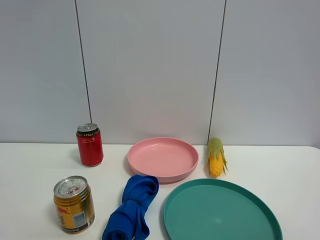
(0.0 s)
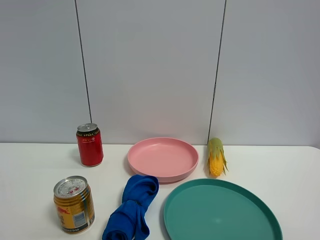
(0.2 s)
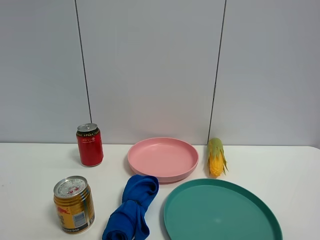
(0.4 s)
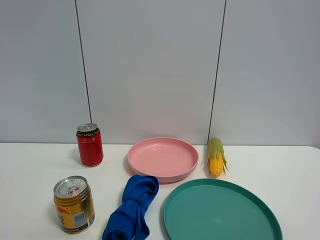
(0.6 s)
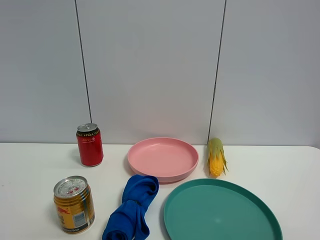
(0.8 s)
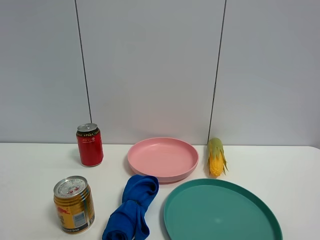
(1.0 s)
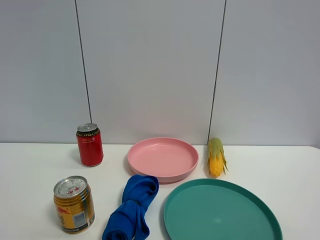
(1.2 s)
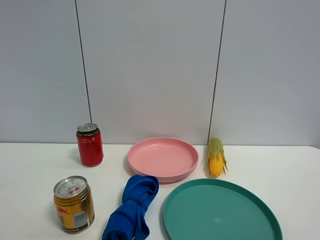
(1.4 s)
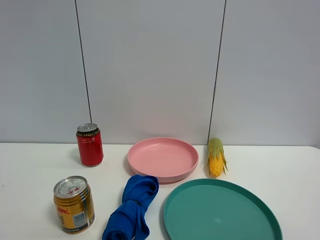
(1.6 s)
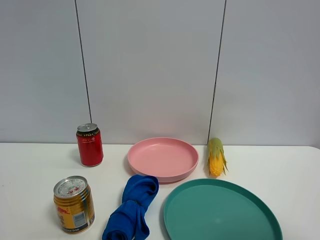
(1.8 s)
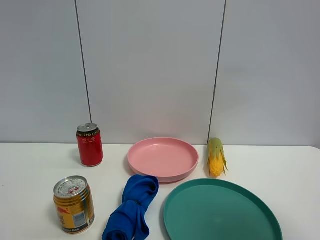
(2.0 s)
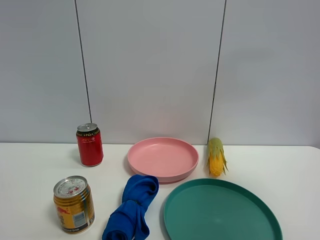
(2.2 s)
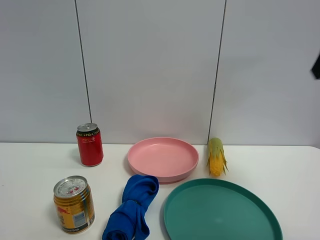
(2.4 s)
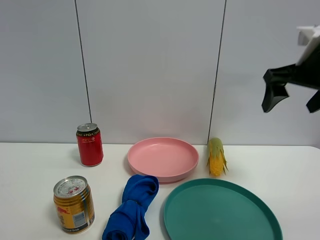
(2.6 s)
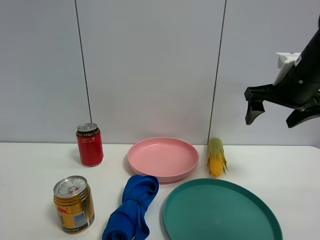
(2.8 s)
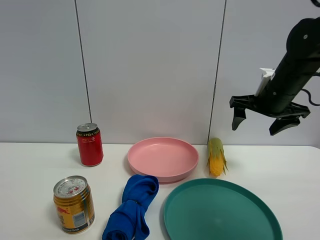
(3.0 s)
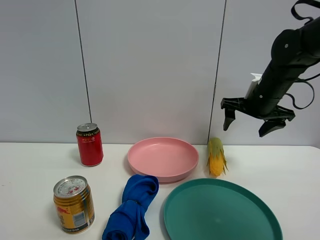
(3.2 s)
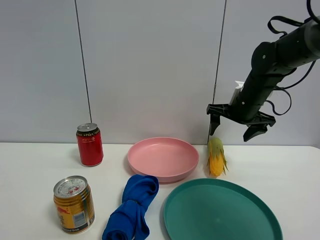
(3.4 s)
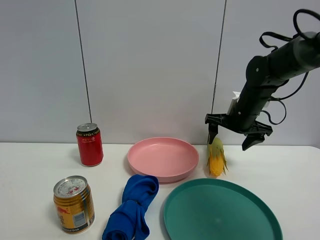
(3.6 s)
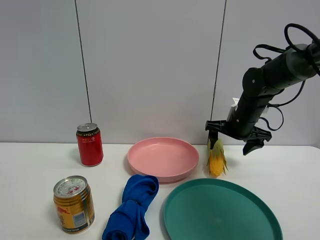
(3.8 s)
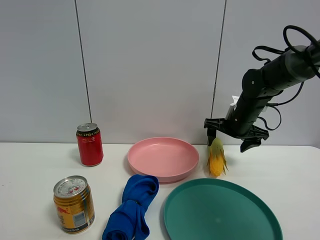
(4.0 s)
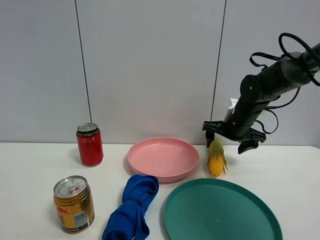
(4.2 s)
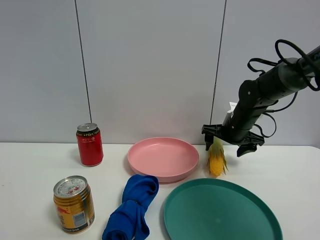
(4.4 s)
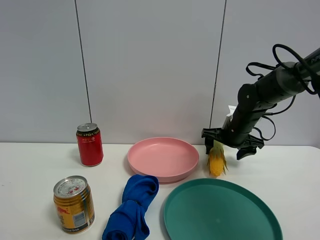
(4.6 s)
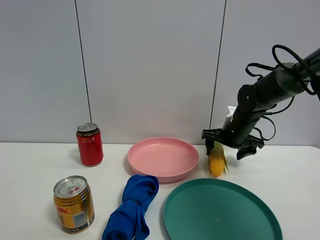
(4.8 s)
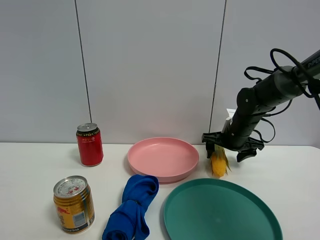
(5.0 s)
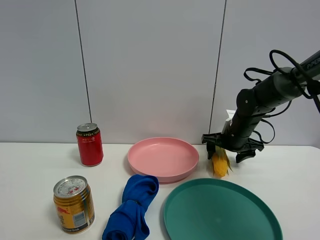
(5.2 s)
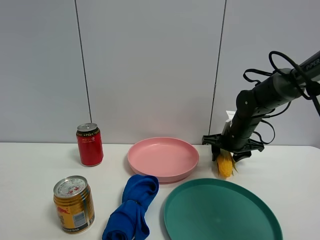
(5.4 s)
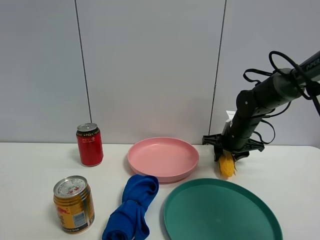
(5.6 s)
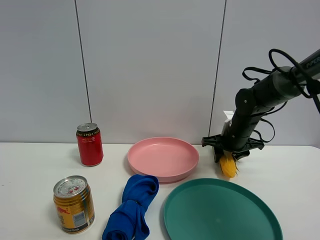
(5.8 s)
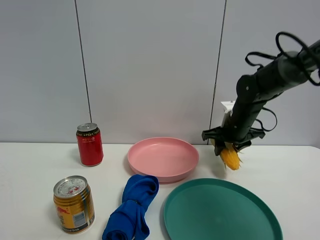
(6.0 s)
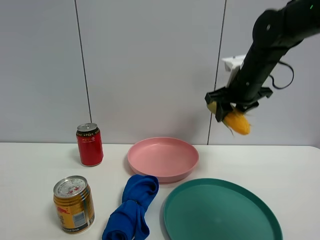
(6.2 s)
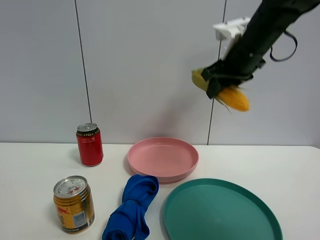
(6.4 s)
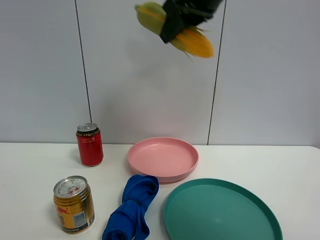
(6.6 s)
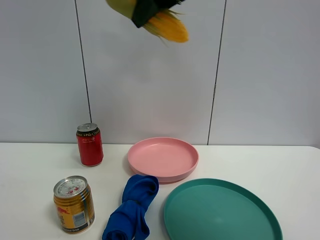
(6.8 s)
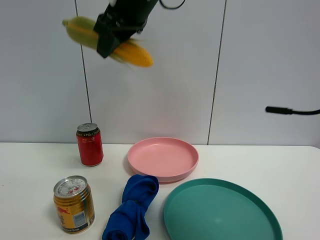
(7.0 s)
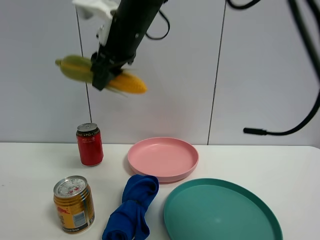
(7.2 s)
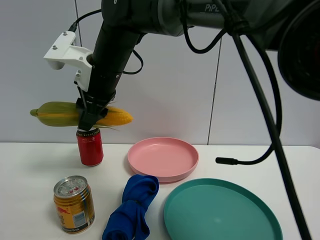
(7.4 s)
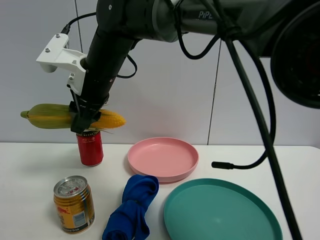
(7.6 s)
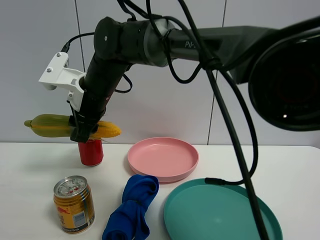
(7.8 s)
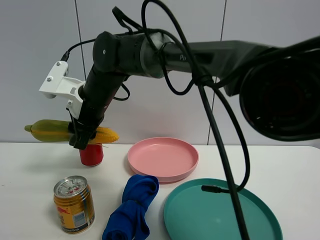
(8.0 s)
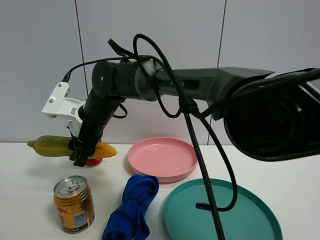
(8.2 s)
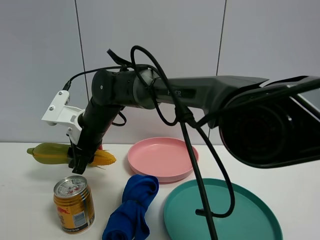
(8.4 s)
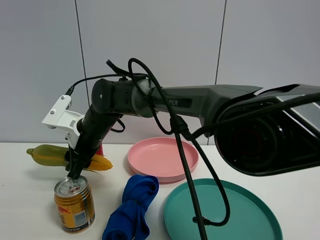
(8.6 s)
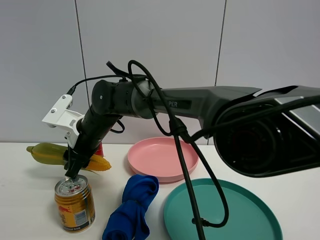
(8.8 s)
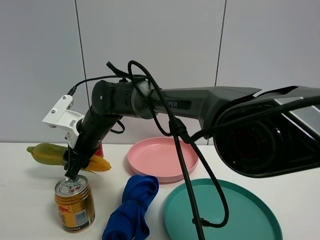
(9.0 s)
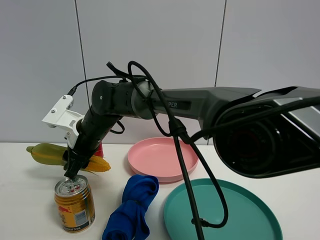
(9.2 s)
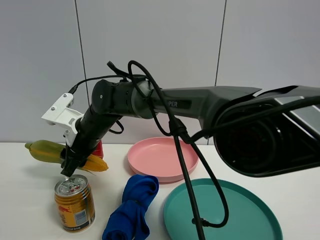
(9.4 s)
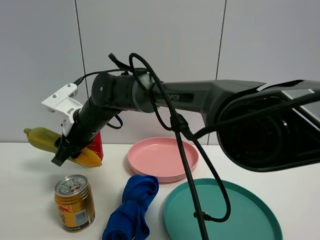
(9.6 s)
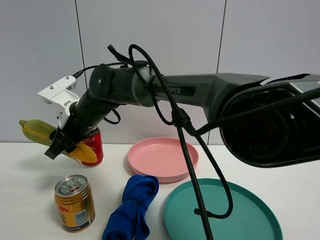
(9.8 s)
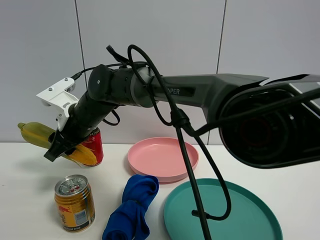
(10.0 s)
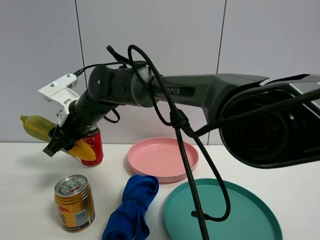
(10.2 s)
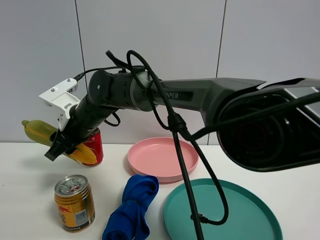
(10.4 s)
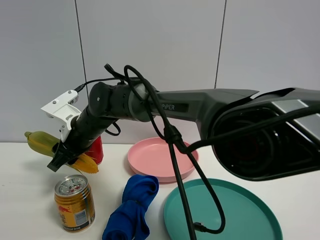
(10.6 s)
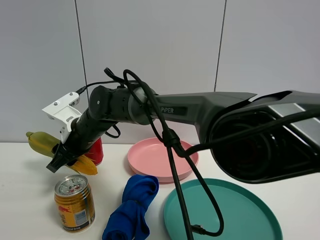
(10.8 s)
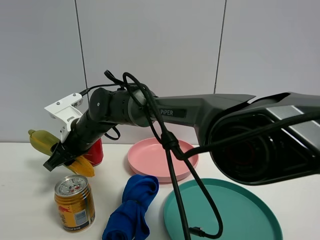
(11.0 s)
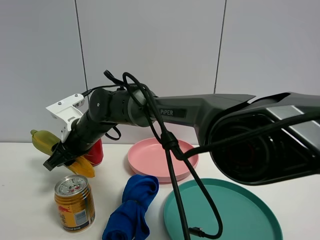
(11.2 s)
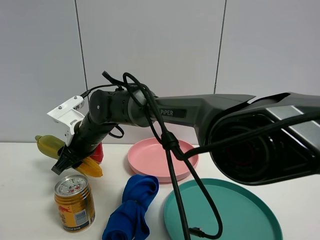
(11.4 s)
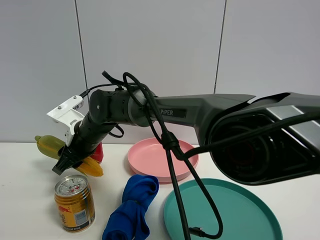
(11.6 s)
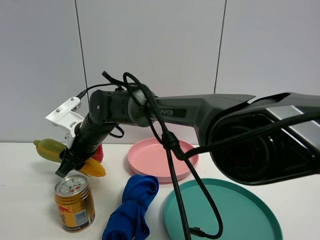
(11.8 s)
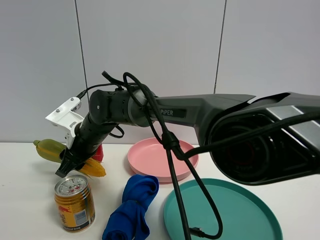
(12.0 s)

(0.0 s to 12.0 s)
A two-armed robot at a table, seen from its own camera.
Task of the whole recording: the gripper move the object.
Step, 0.0 s - 5.6 s: Grasp the corn with the right gripper.
1.6 s - 3.0 s: The right gripper travels forward by approximately 40 cm.
3.0 s - 4.4 s: The right gripper heads downward and forward, covering roughly 10 cm.
4.4 s - 6.0 s: The right gripper closes.
6.0 s - 7.6 s: The right gripper goes approximately 30 cm to the left.
7.6 s - 9.0 s: The right gripper heads downward, covering roughly 15 cm.
9.0 s - 10.4 s: The grippers move only a little.

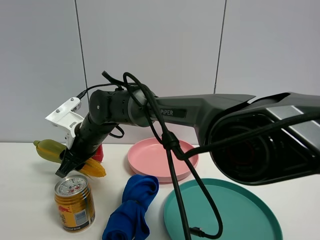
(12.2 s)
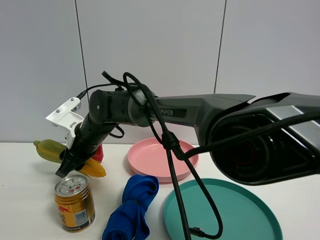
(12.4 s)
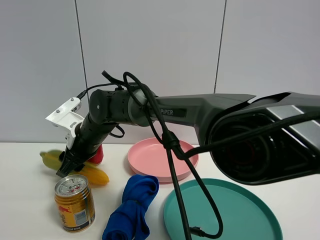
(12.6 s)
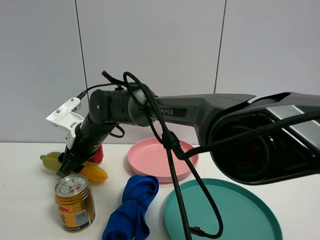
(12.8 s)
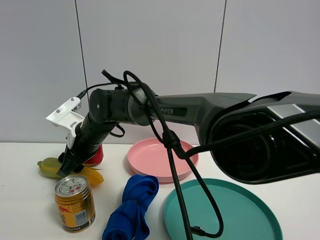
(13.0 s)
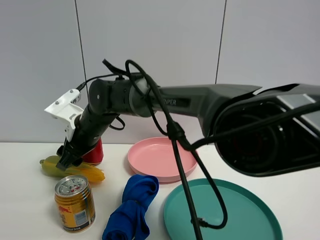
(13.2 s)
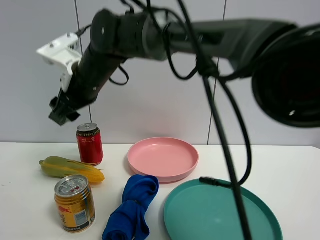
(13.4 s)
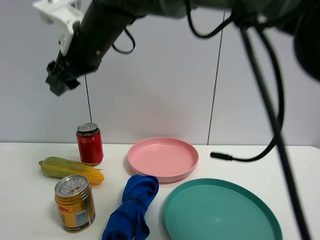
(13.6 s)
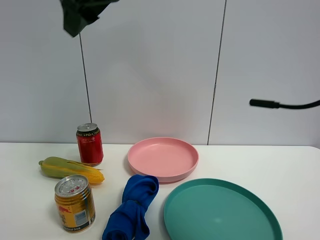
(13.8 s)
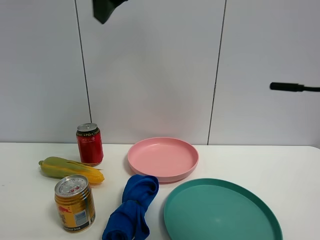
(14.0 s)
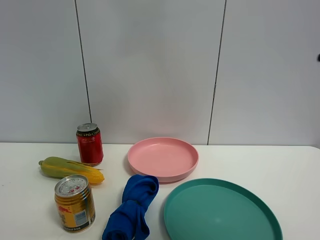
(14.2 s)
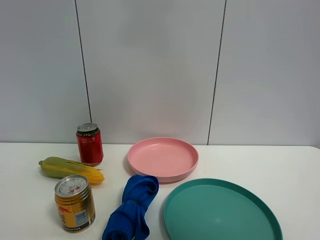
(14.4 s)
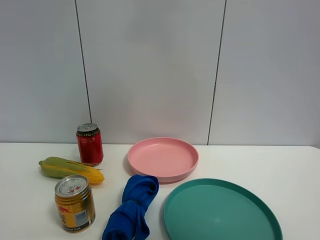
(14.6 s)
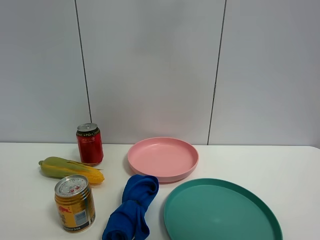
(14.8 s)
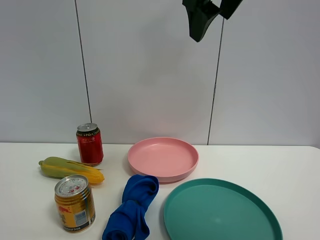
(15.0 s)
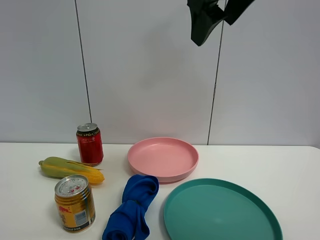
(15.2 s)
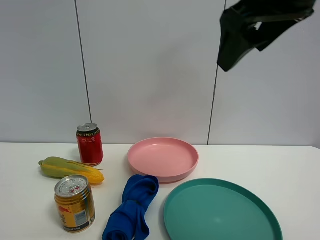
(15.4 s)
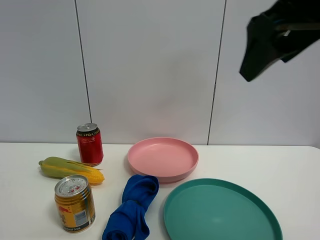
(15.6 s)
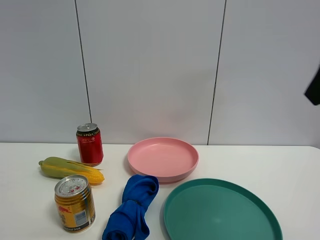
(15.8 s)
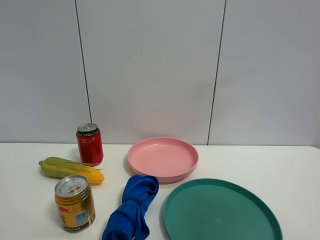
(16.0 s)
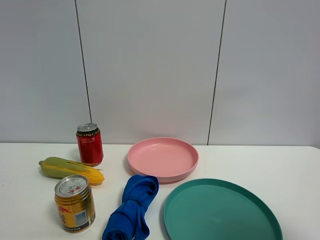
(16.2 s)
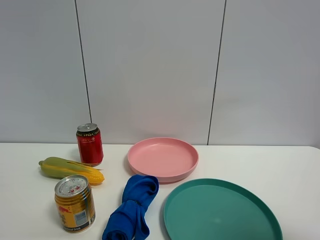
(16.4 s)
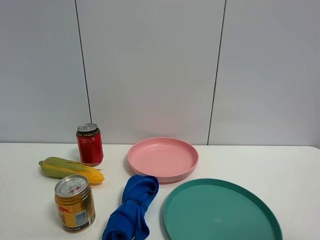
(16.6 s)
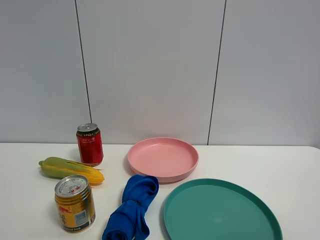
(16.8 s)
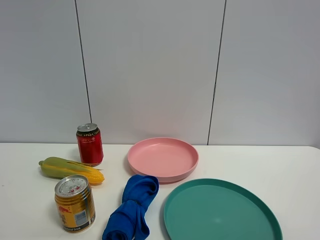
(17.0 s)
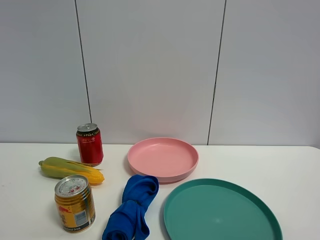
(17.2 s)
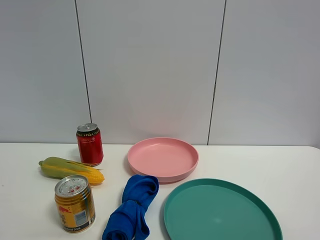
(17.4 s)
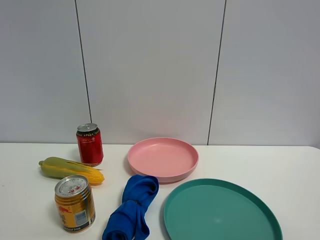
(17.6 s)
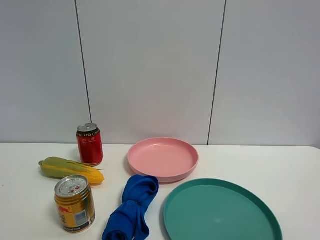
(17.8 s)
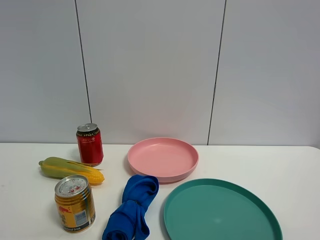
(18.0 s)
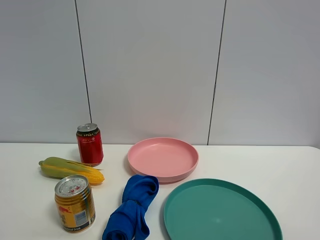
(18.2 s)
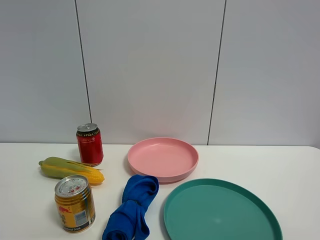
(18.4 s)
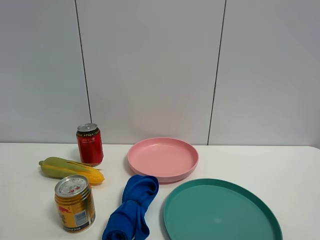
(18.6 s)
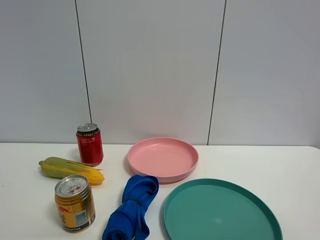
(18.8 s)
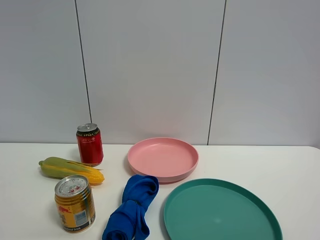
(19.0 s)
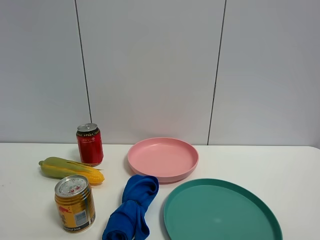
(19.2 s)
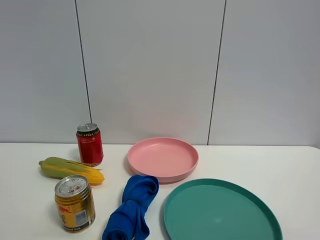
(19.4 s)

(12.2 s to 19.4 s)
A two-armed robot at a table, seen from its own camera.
Task of the whole recording: the gripper move the object.
12.2 s - 13.6 s: The right gripper travels upward by some 20 cm, and opens up.
13.6 s - 15.0 s: The right gripper heads to the right and upward, covering about 20 cm.
15.0 s - 16.6 s: The right gripper moves backward, to the right and downward, about 35 cm.
18.0 s - 19.4 s: Both grippers stay put.

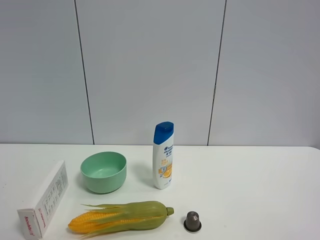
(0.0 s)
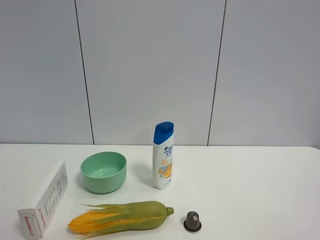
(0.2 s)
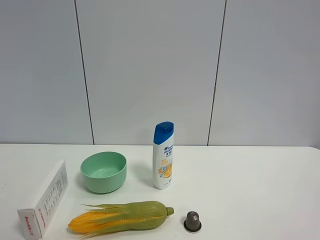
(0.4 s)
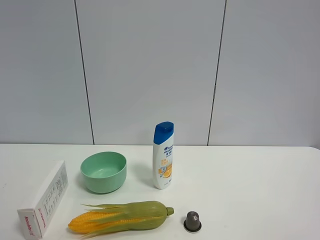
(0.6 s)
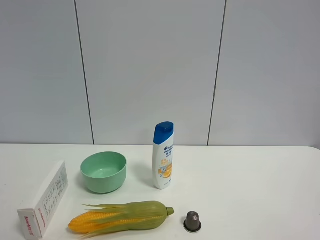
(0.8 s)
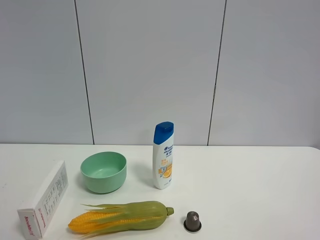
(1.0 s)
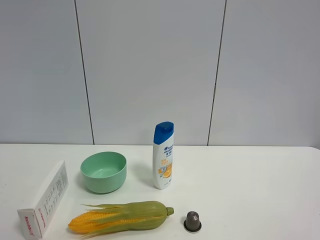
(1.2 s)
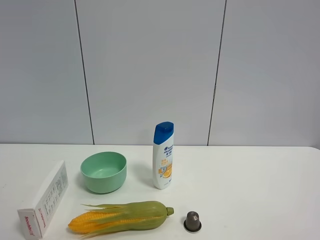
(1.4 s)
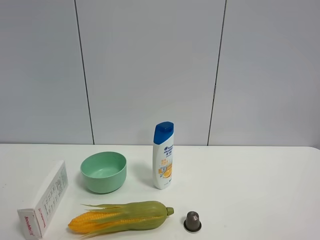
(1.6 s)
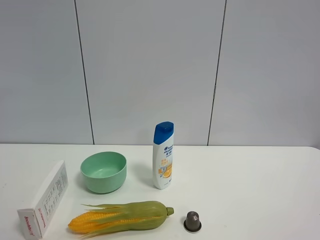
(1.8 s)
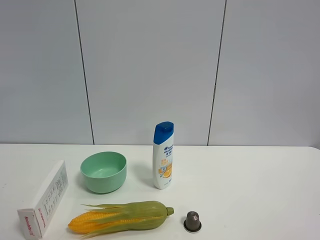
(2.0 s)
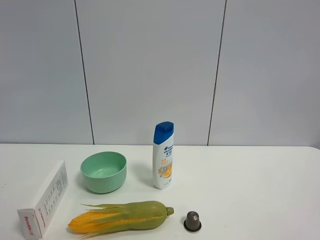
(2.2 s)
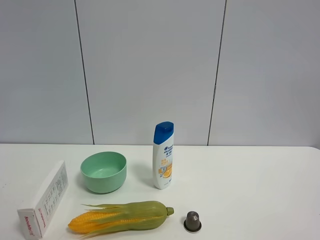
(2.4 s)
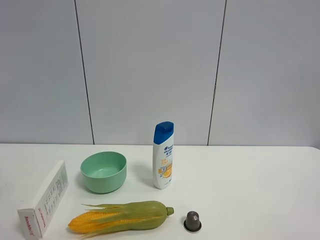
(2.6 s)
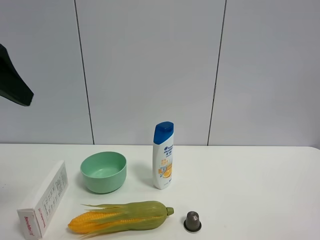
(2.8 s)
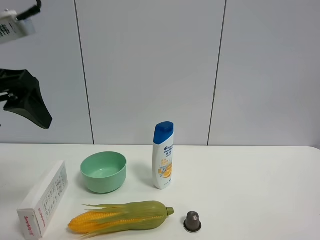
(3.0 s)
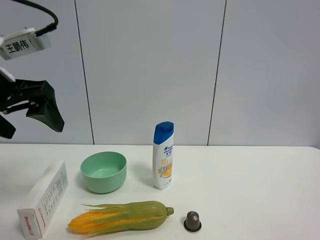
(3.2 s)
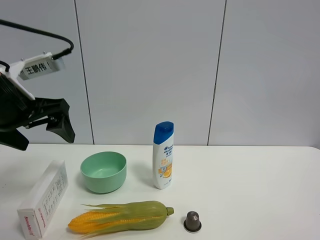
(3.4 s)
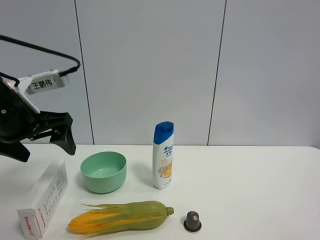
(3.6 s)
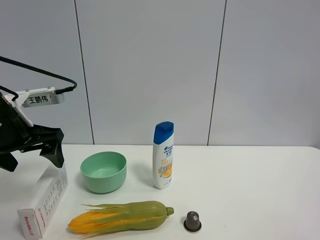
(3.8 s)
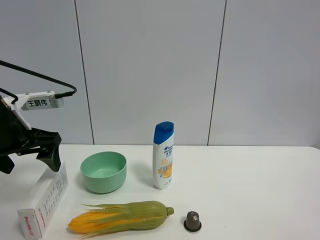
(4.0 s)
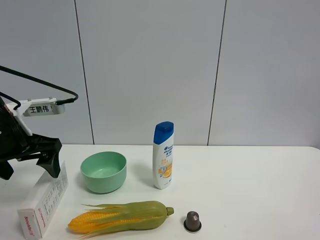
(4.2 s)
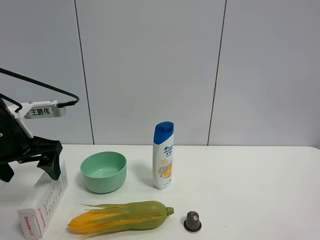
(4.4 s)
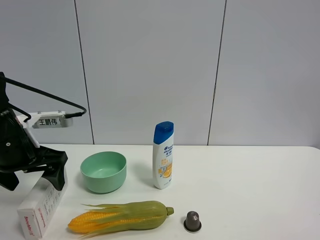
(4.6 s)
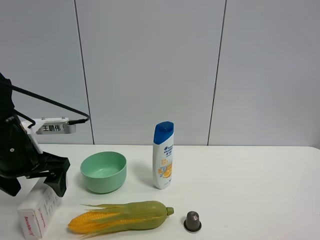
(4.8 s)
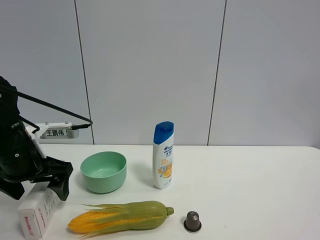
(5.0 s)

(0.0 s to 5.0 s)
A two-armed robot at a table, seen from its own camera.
Task of the whole recording: the gripper move the object.
1.6 s - 3.4 s: The left gripper travels forward by about 25 cm.
3.4 s - 5.0 s: The left gripper is displaced downward by approximately 10 cm.
